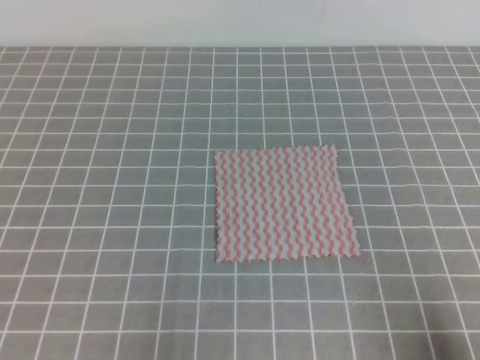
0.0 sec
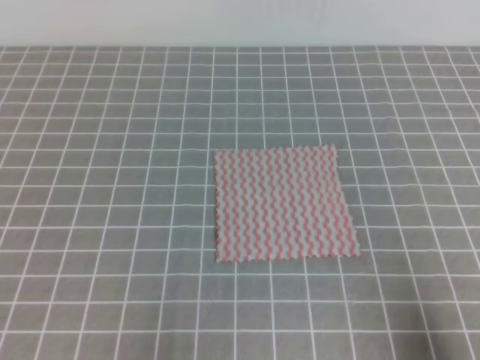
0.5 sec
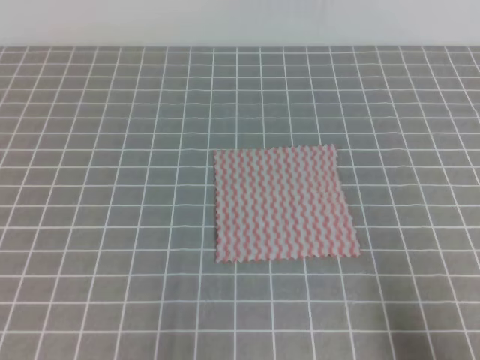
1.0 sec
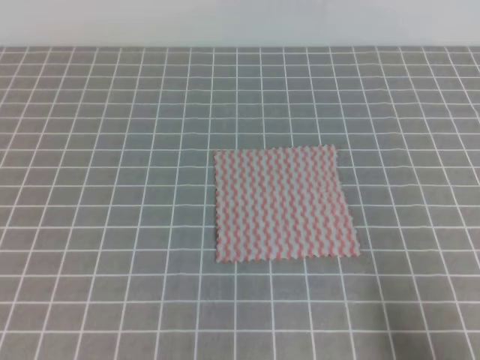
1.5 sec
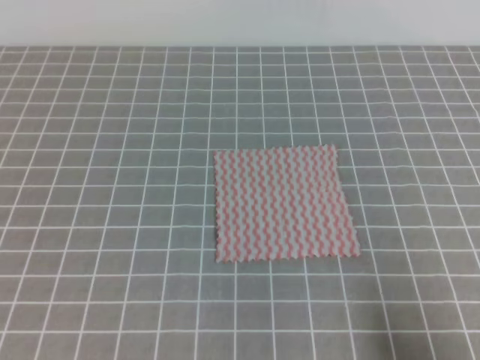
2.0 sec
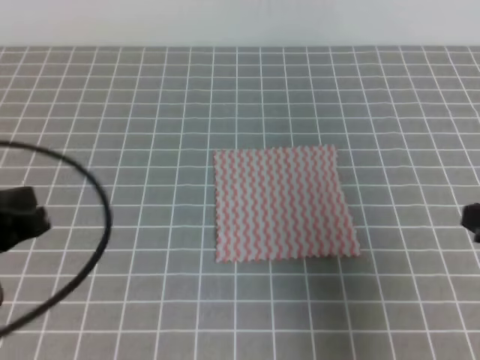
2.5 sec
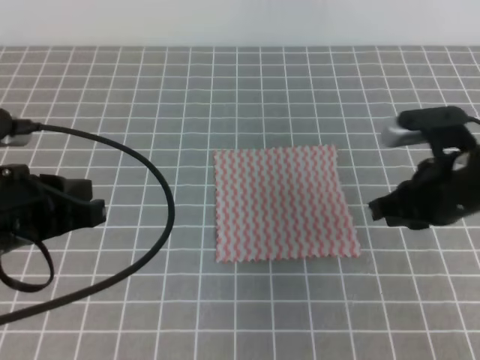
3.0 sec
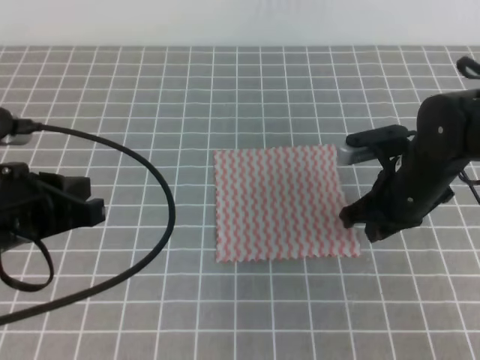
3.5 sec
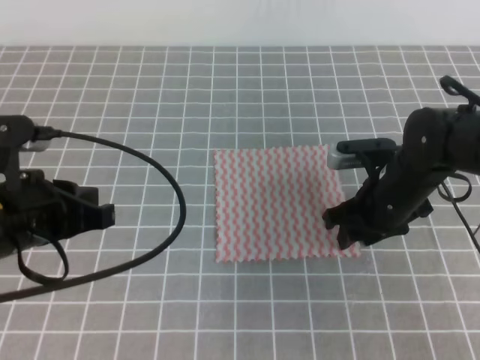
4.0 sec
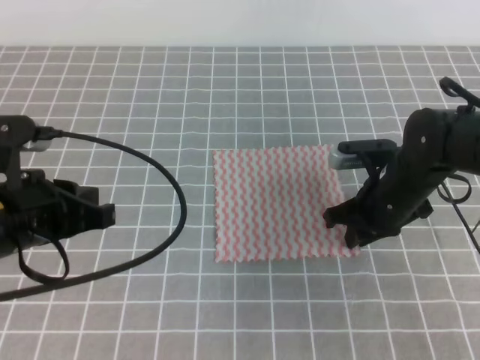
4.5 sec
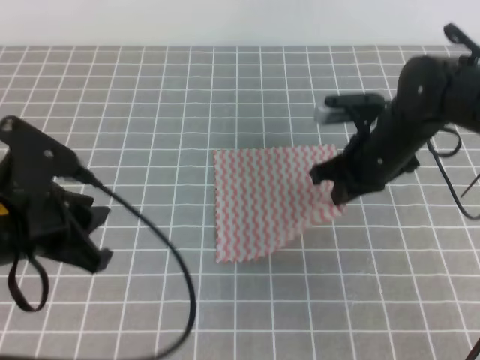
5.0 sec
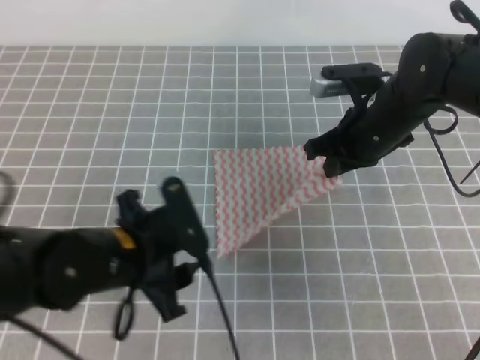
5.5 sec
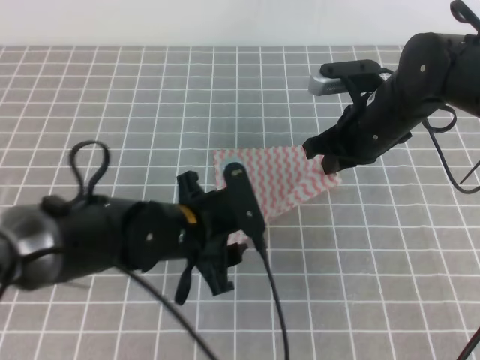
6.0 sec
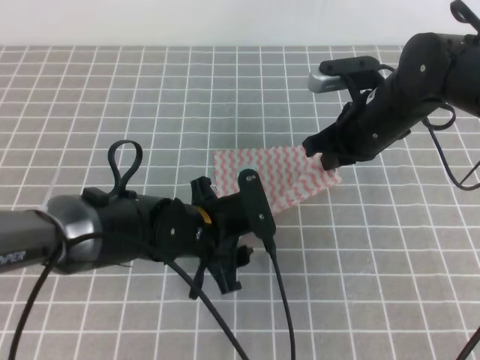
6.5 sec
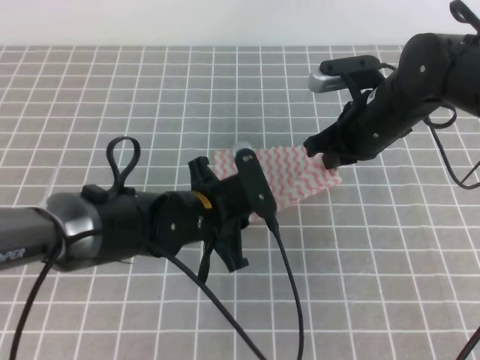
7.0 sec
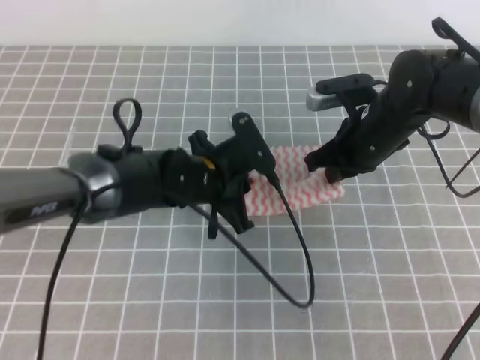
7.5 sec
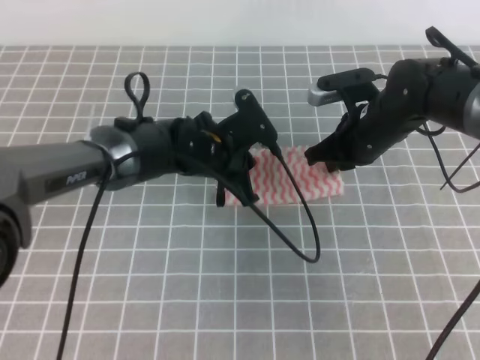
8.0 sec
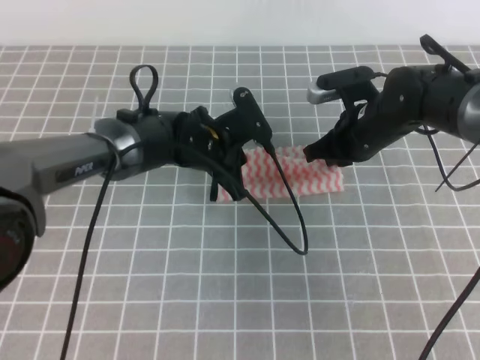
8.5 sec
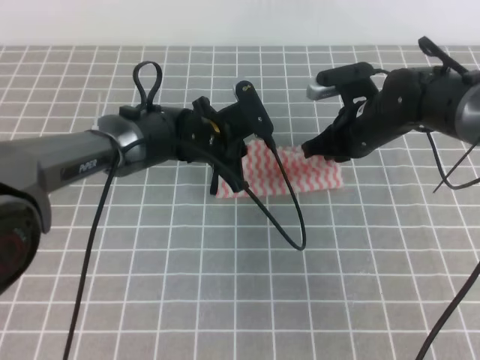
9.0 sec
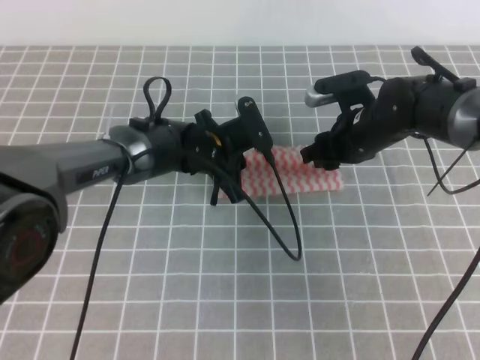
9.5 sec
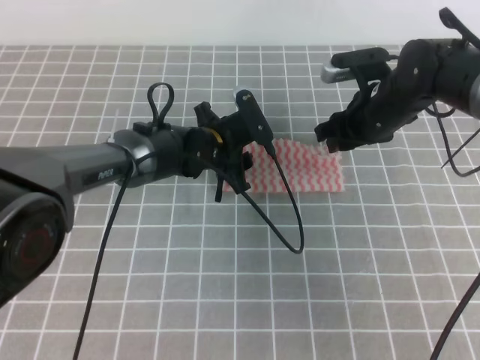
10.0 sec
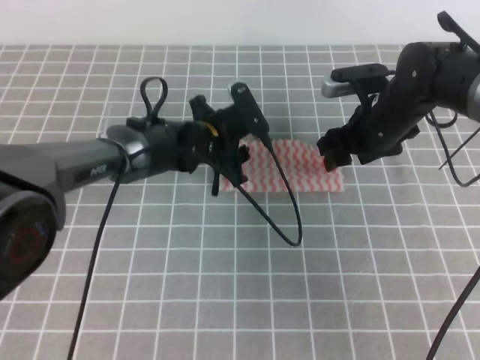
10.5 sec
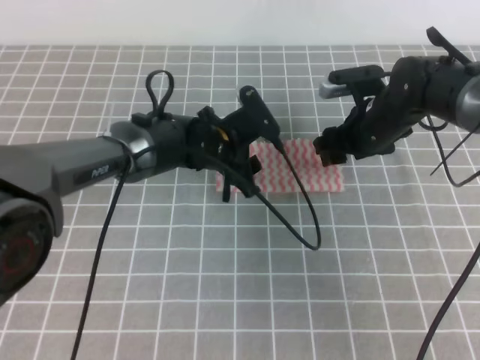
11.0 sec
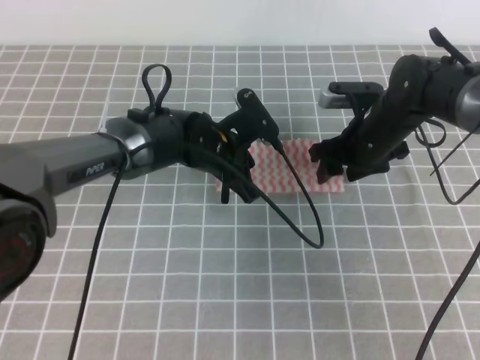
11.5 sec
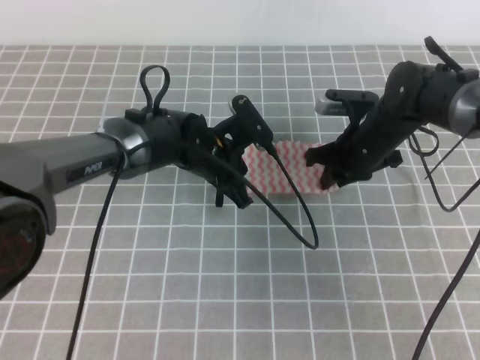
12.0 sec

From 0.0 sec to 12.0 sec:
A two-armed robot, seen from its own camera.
Step, from 0.0 sec to 6.0 sec: Fold the towel upwards with the both gripper.
Step, from 6.5 sec to 8.5 sec: Fold the towel from right to left with the right gripper.
From 2.0 sec to 4.0 sec: The left gripper travels forward and to the right by some 15 cm. Meanwhile the right gripper is displaced forward and to the left by about 30 cm, and opens up.
From 4.0 sec to 6.0 sec: The left gripper is displaced to the right and downward by some 15 cm, and opens up, while the right gripper travels upward by approximately 5 cm, and closes its fingers.
From 6.0 sec to 8.0 sec: The left gripper moves forward, about 15 cm, and closes its fingers.
From 8.0 sec to 10.0 sec: The left gripper moves about 5 cm, and opens, while the right gripper opens its fingers.
From 10.0 sec to 12.0 sec: The right gripper closes its fingers; the left gripper closes.

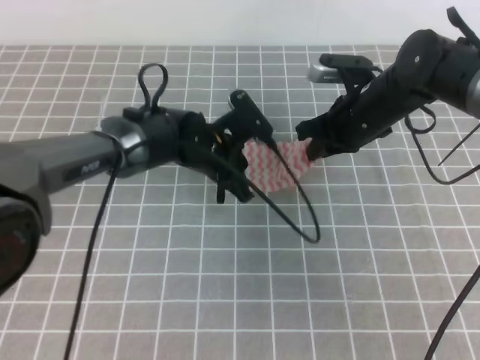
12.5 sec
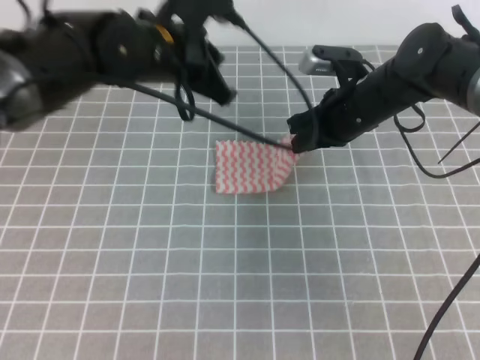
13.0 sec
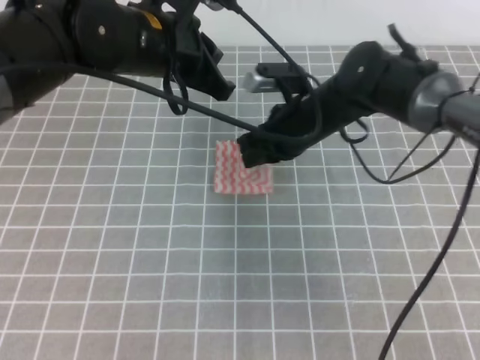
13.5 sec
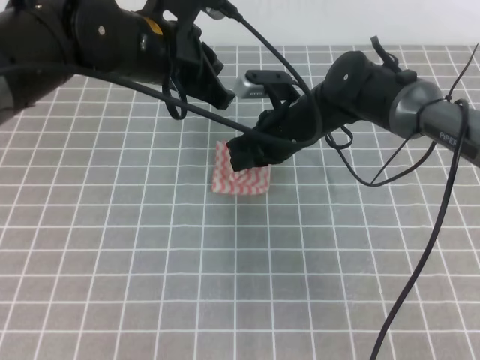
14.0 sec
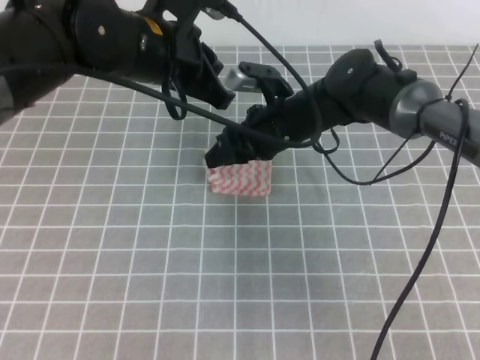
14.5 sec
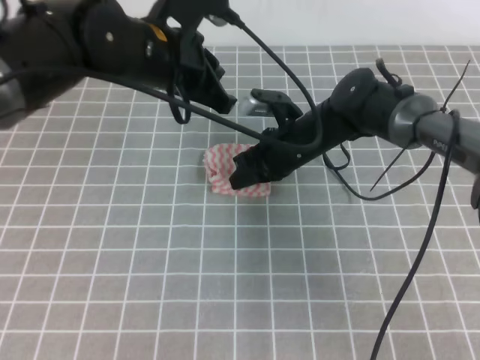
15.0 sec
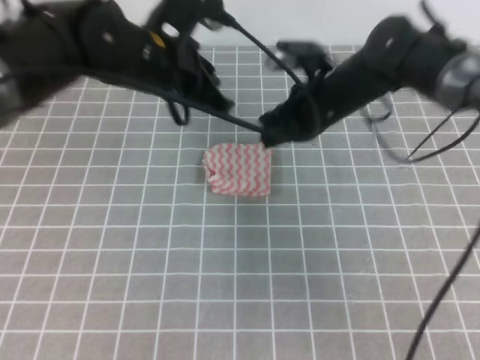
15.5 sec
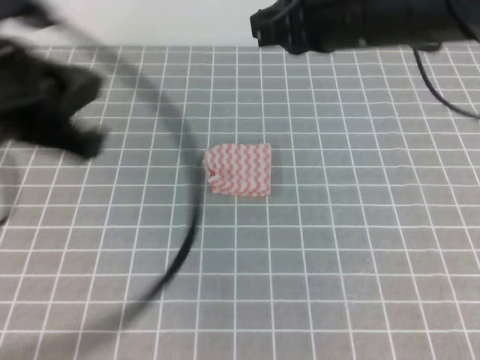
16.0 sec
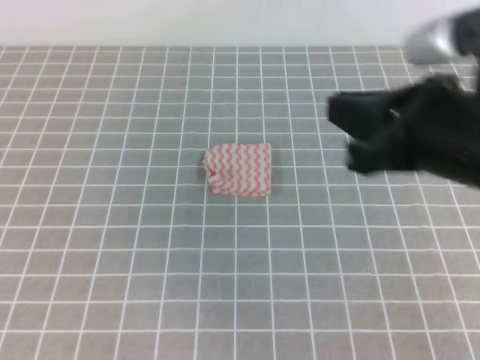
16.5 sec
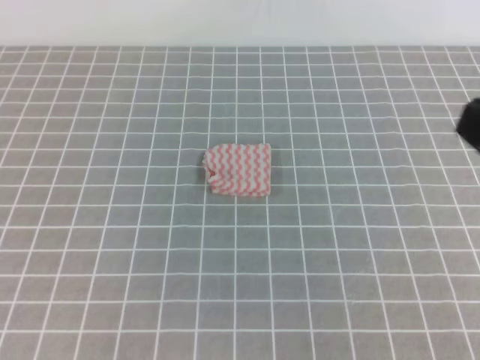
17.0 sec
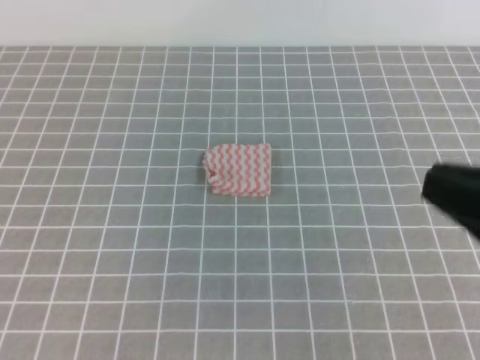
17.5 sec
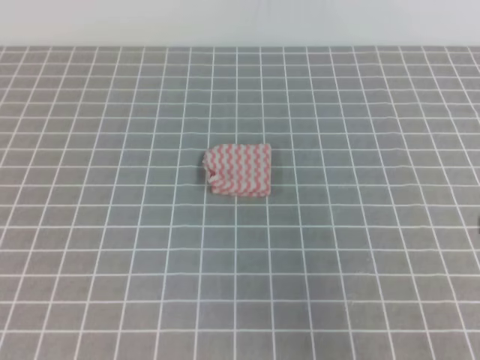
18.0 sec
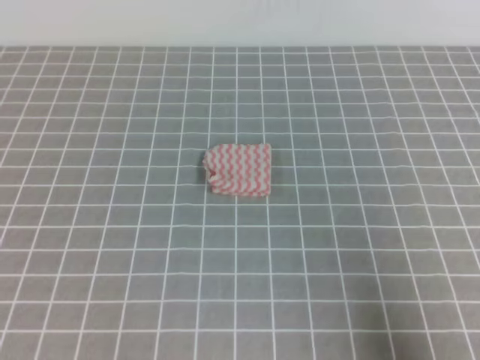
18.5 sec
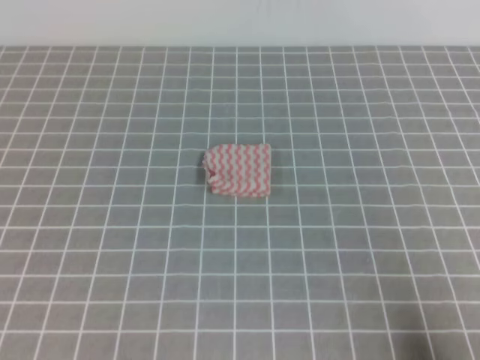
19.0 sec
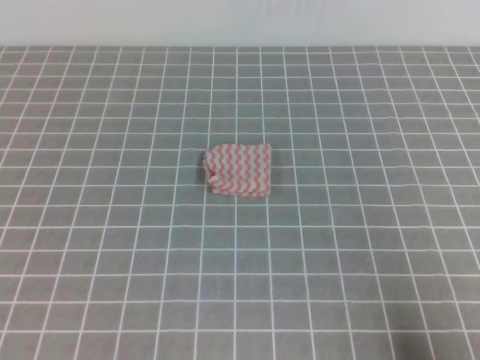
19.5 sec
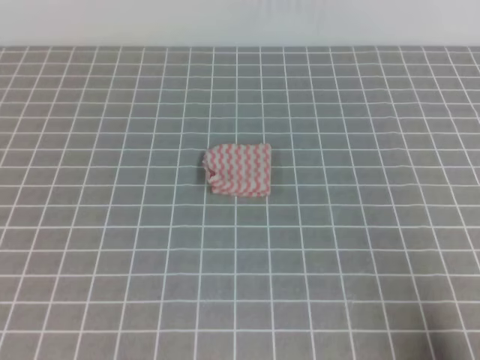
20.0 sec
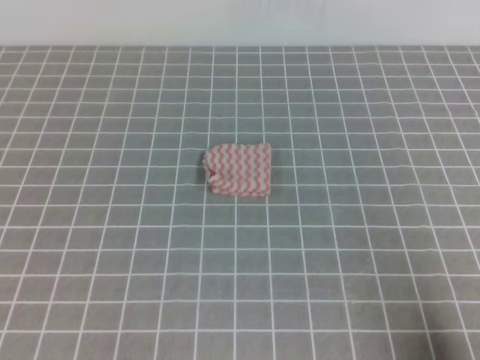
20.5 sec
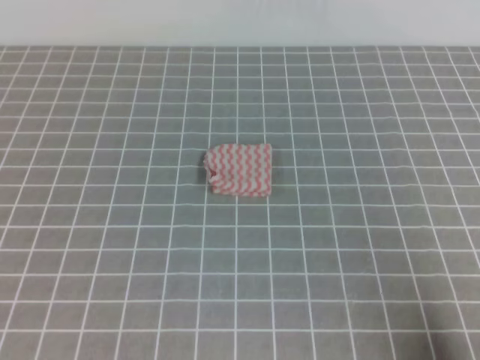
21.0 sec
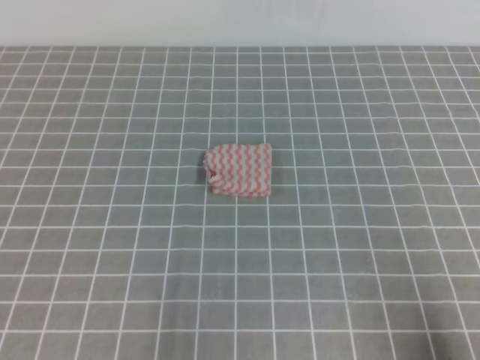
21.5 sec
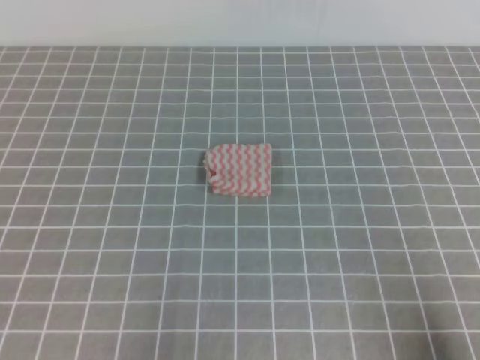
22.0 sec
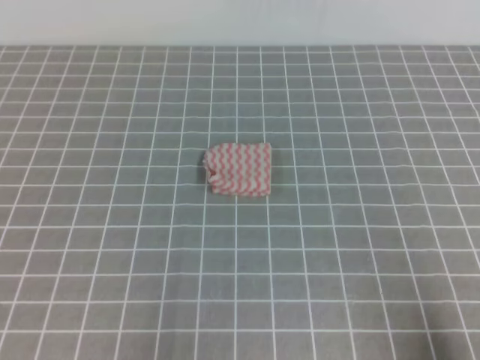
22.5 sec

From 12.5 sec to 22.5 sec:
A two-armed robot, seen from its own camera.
From 12.5 sec to 14.5 sec: The right gripper goes roughly 10 cm to the left, and opens up, while the left gripper goes some 15 cm upward.
From 14.5 sec to 16.5 sec: The left gripper goes approximately 35 cm backward and to the left; the right gripper goes roughly 30 cm backward, upward and to the right, and closes up.
From 16.5 sec to 18.5 sec: The right gripper heads backward, to the right and downward, covering approximately 25 cm.
From 18.5 sec to 20.5 sec: The right gripper travels downward by approximately 5 cm.
